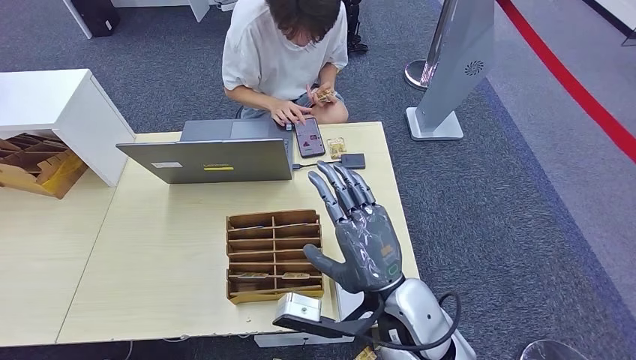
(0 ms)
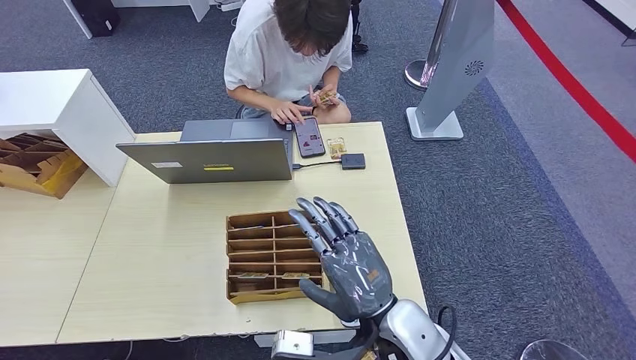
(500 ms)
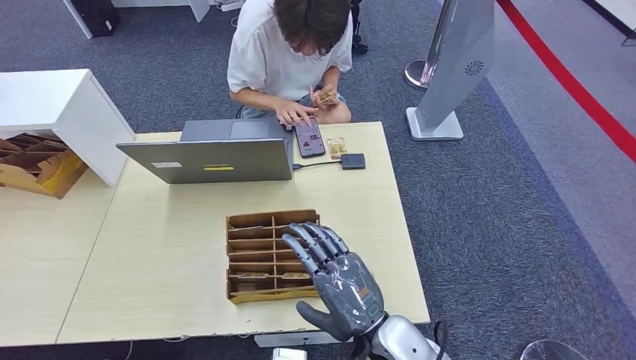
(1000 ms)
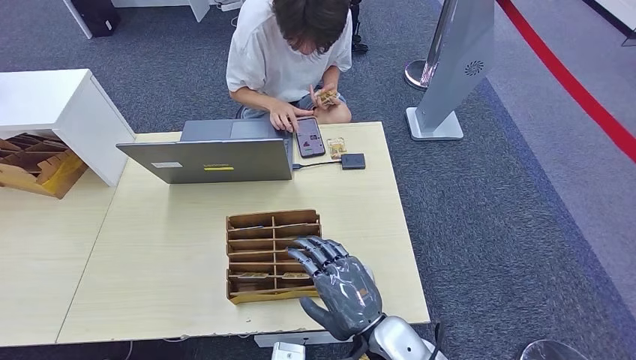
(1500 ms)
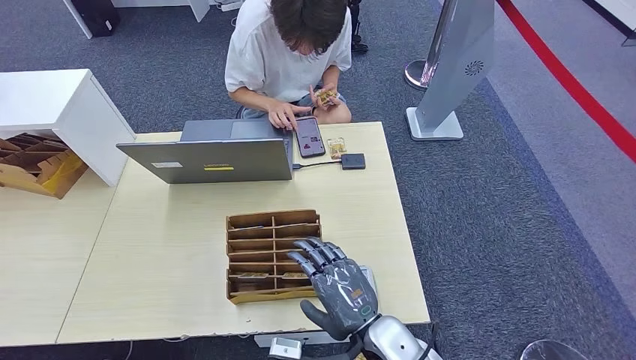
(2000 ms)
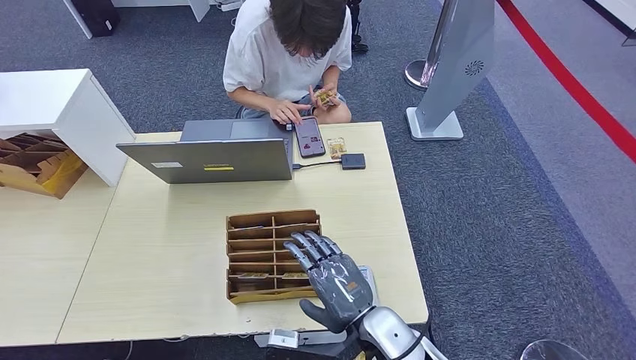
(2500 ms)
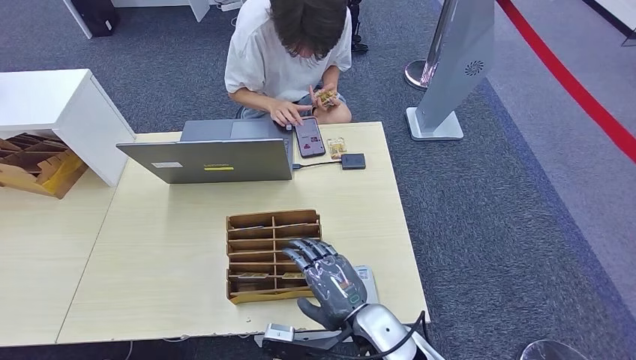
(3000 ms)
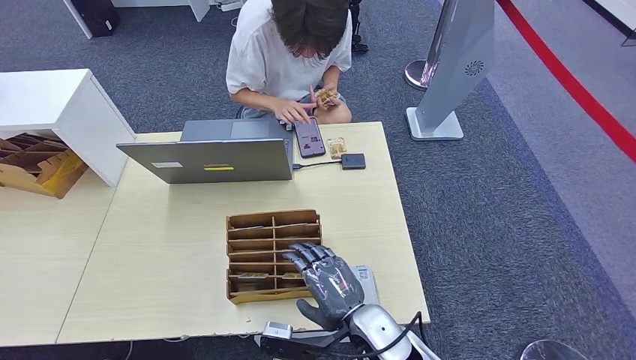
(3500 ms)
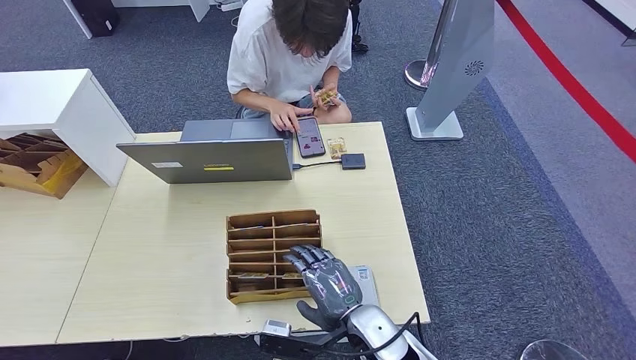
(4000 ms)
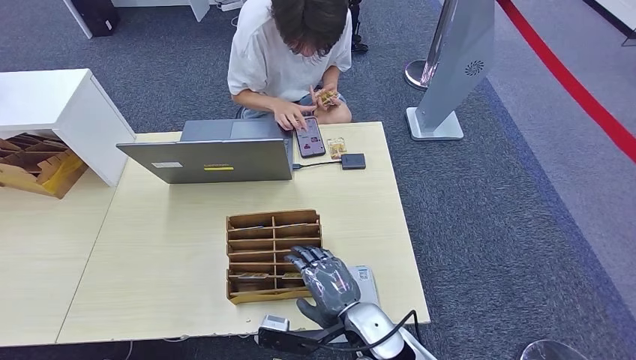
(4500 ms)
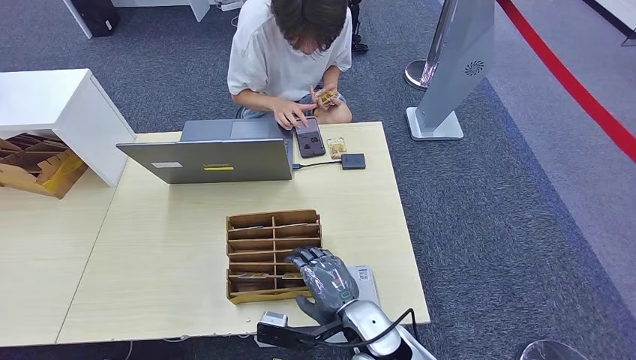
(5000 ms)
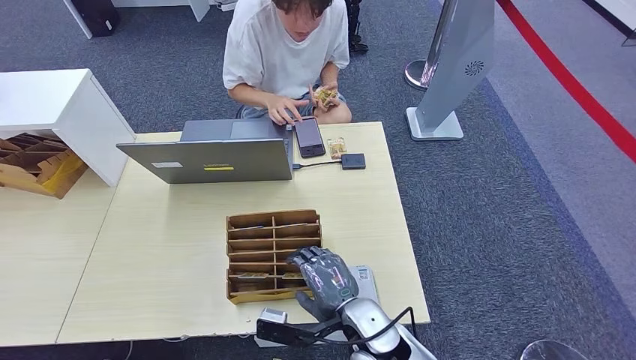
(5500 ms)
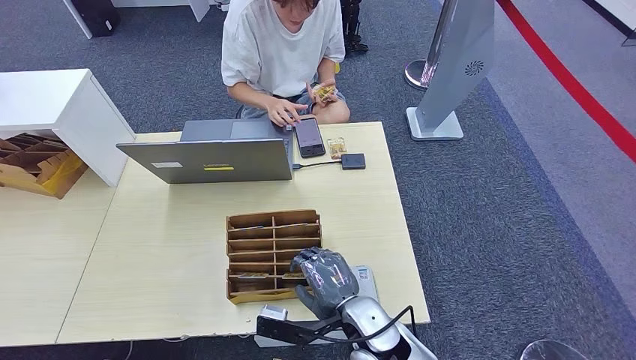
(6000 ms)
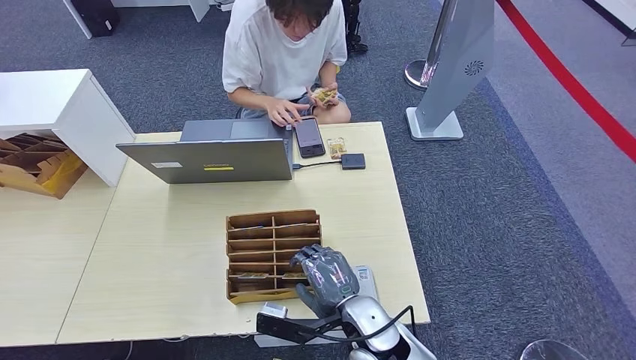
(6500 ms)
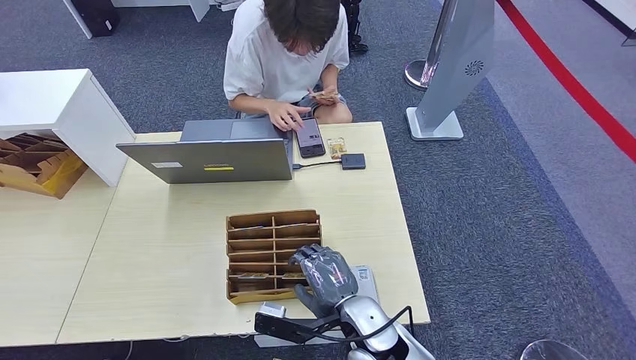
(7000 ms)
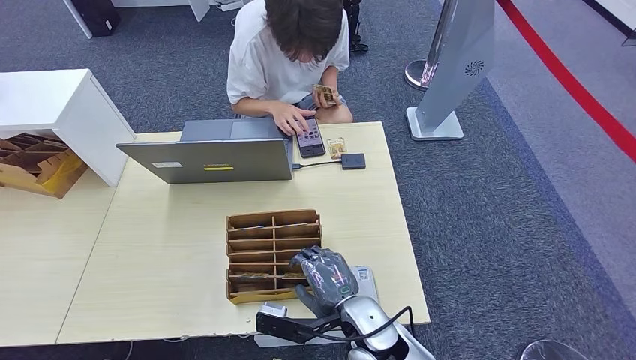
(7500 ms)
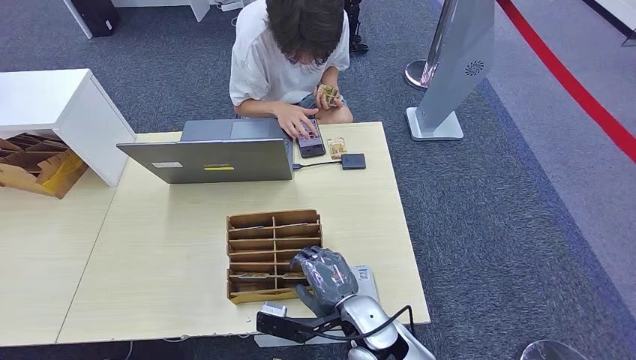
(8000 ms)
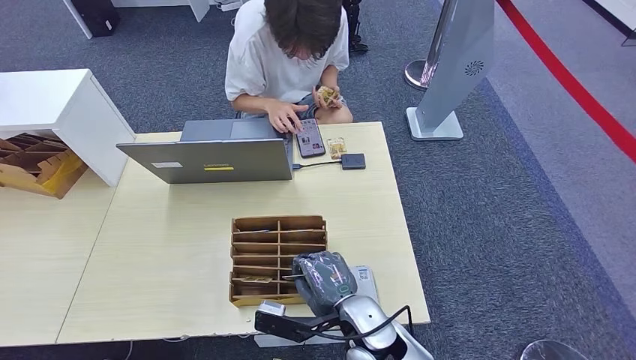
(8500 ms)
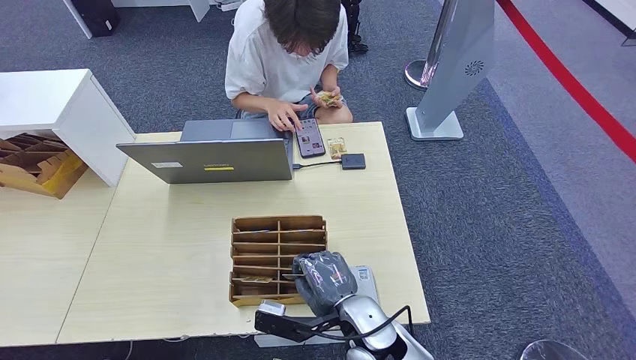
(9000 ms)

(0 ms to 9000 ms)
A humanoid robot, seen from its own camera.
Step, 0 ms - 8500 ms: Pick up the room key from the key card box.
0 ms - 2000 ms: The right hand shifts about 10 cm downward.
2000 ms - 4500 ms: The right hand changes place by some 5 cm.
4500 ms - 7000 ms: Both hands stay about where they are.
7000 ms - 9000 ms: Both hands stay about where they are.

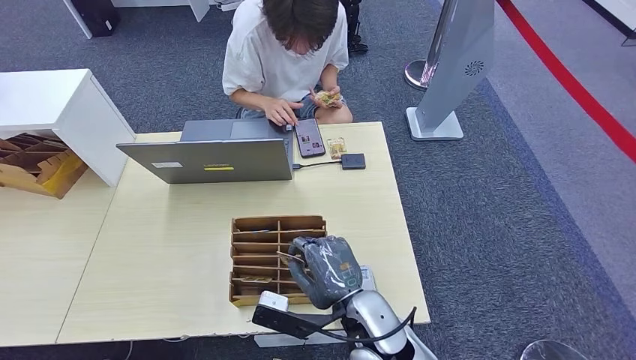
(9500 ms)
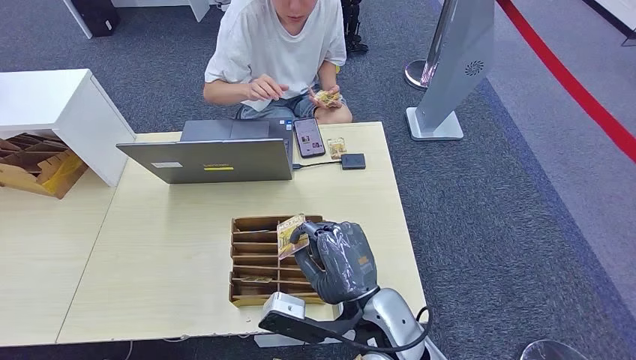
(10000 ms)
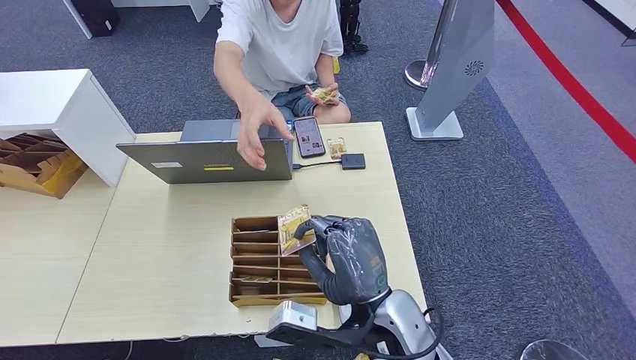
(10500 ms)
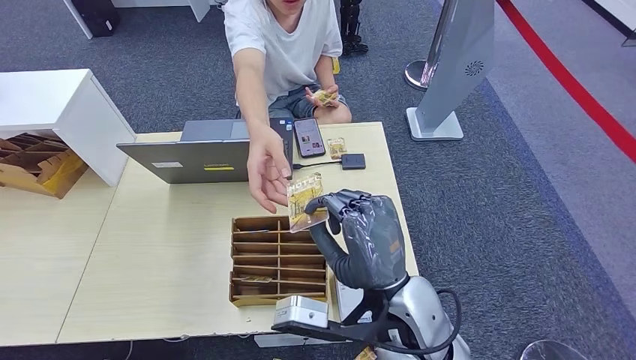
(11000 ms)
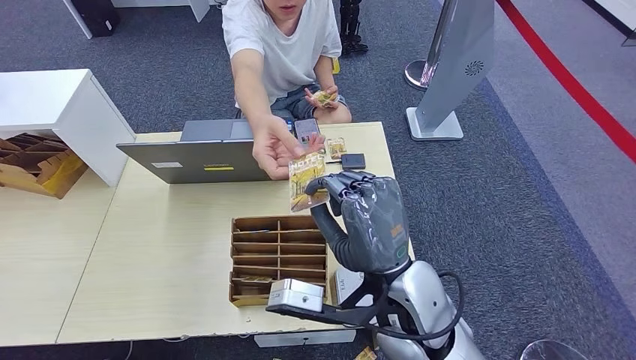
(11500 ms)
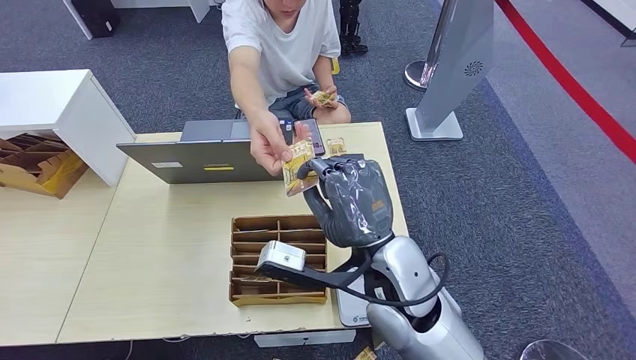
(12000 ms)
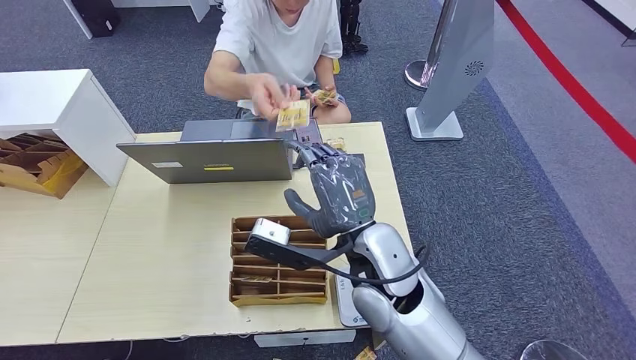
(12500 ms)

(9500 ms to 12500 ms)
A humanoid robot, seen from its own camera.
Step, 9500 ms - 12500 ms: Hand the room key to the person.
9500 ms - 11000 ms: The right hand is displaced upward by some 10 cm.
11000 ms - 12500 ms: The right hand moves forward, some 5 cm.
